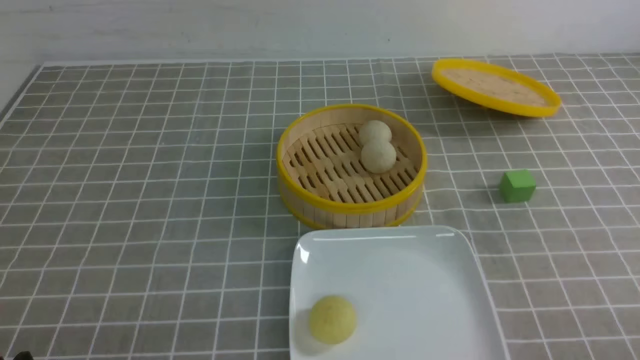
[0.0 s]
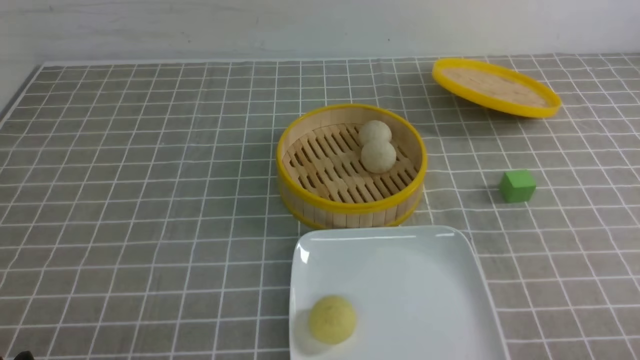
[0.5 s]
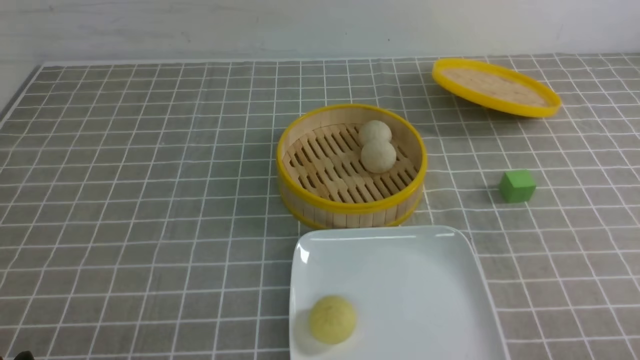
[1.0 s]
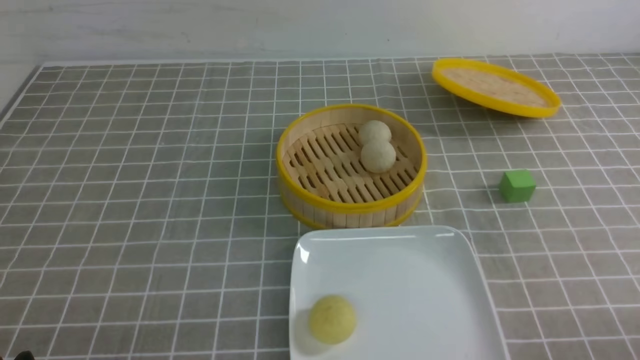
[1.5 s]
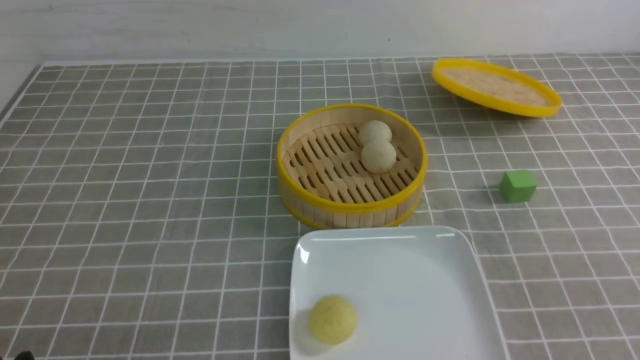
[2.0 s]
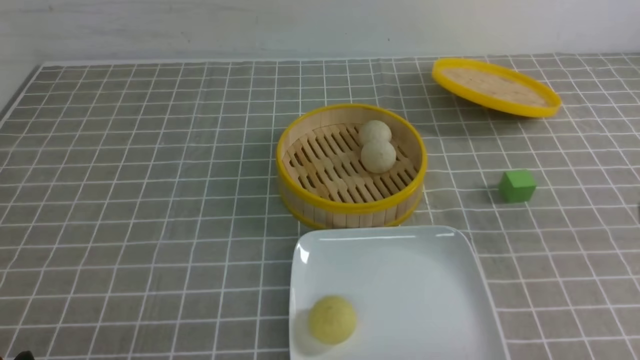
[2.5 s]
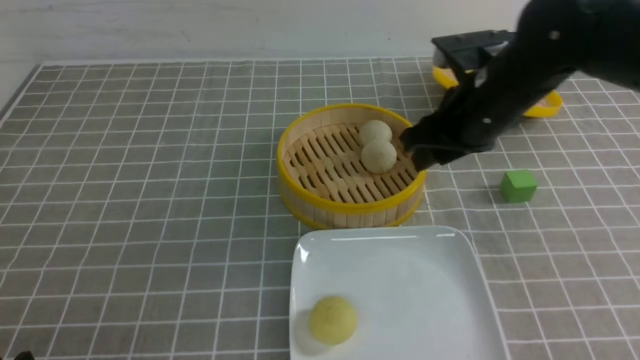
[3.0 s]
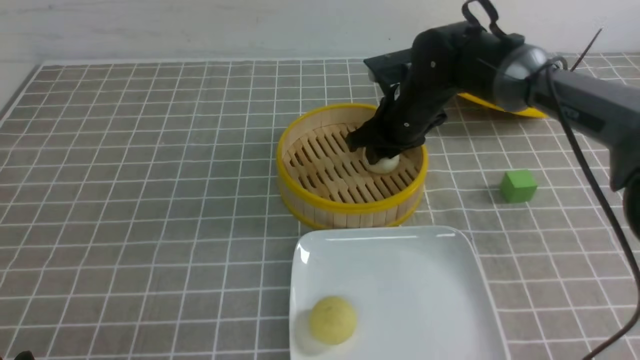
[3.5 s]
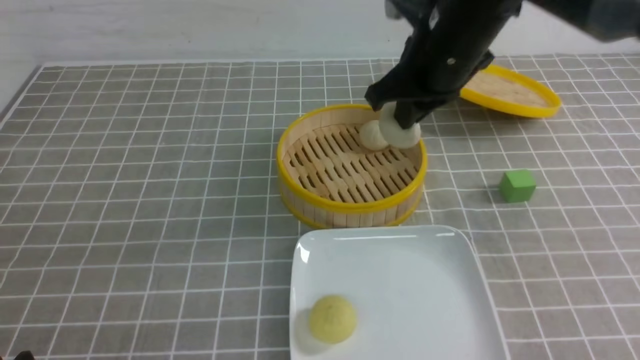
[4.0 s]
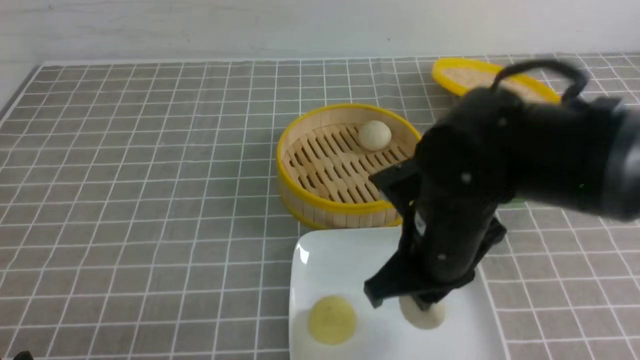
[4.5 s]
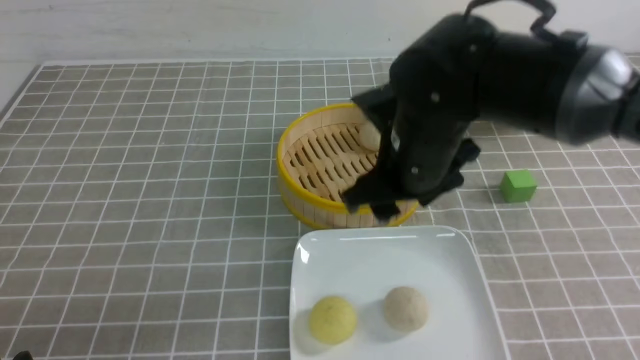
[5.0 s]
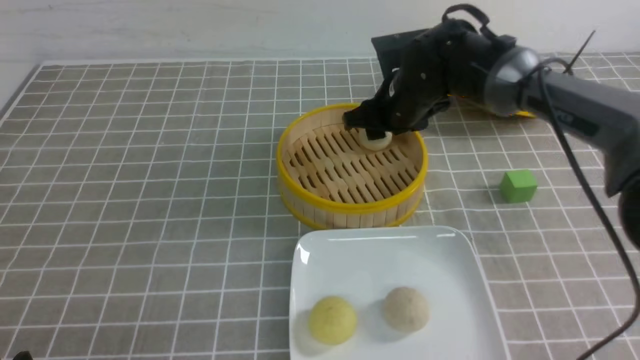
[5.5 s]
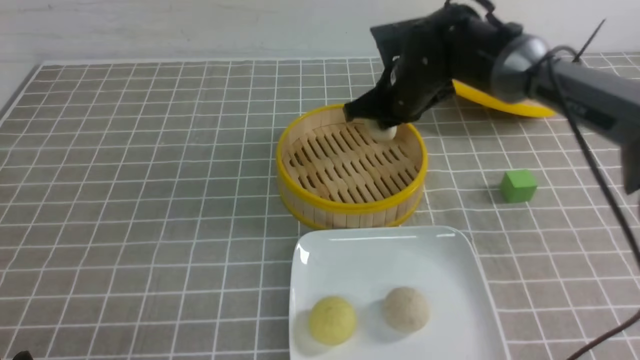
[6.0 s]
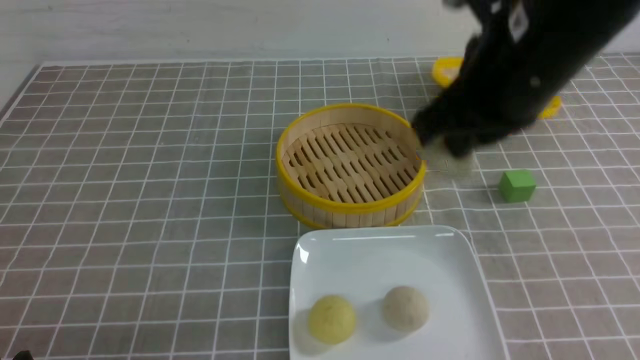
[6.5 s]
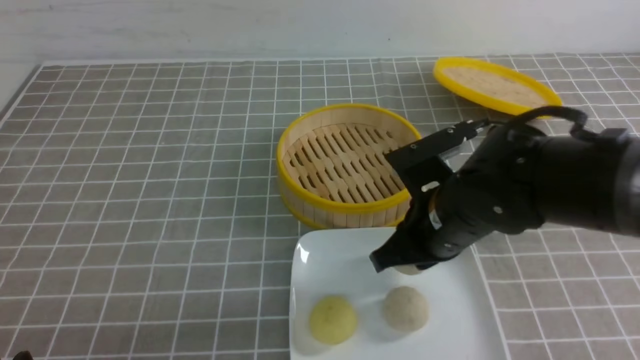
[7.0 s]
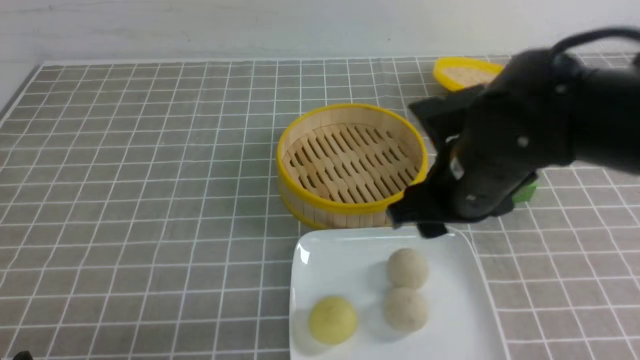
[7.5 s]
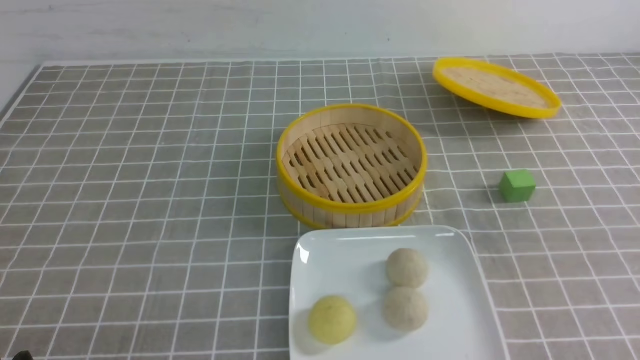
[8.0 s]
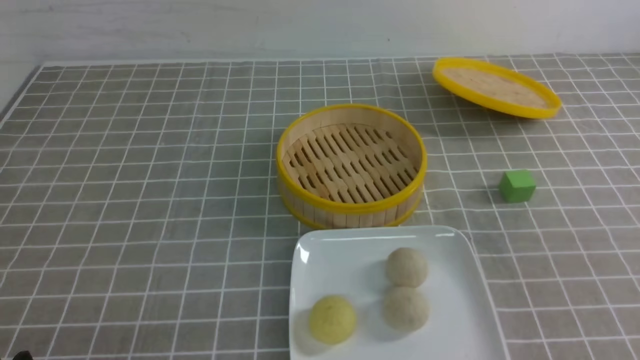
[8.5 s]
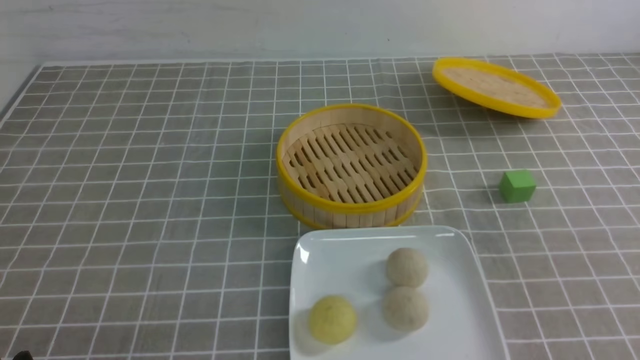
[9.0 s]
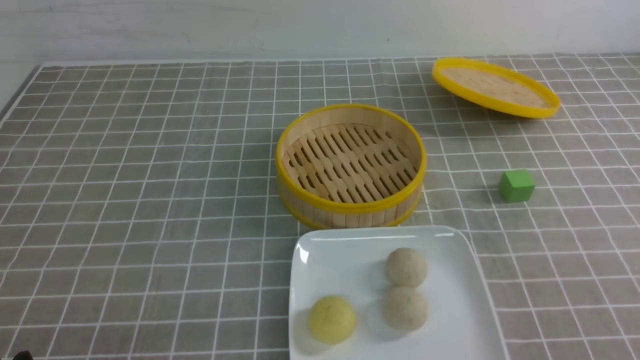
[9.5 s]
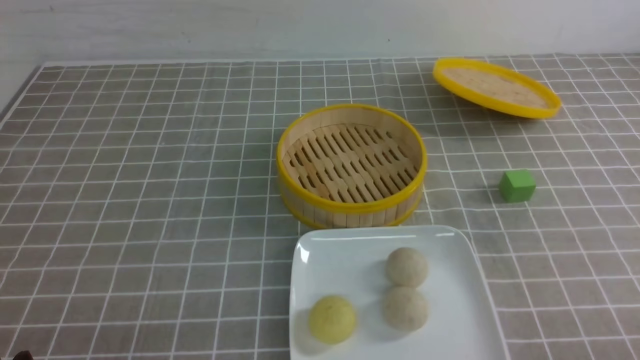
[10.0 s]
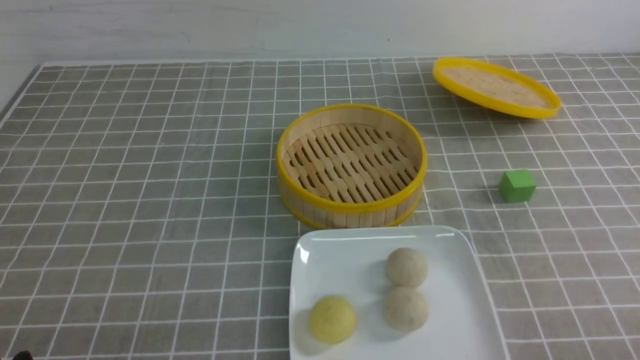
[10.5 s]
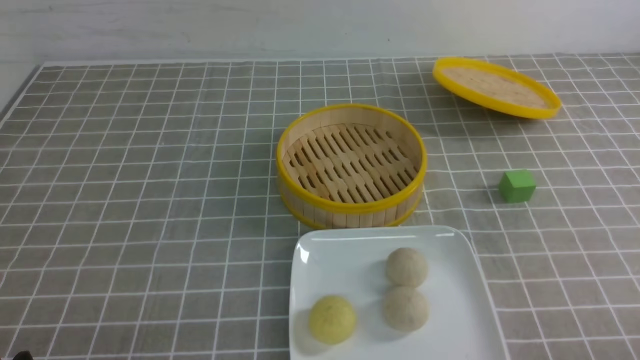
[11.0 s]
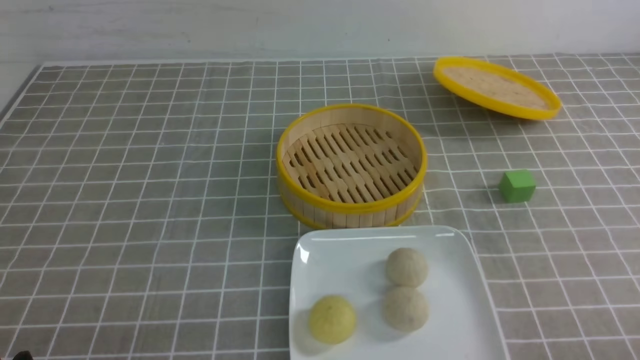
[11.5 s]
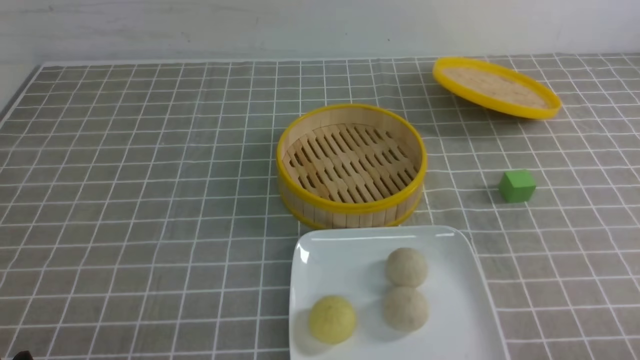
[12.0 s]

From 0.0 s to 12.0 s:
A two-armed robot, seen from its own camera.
Step, from 0.0 s to 3.5 s: use the right arm to grab the steamed stuffed bun that is closest to it.
Step, from 4.0 s to 4.5 s: use the right arm to put the steamed stuffed bun into the plate.
Step, from 5.0 s to 5.5 s: use the right arm to grab the steamed stuffed bun that is closest to it.
Step, from 6.0 s to 7.0 s: use the right arm to put the steamed stuffed bun into the plate.
From 2.0 s to 4.0 s: The right gripper shifts some 35 cm forward and to the left, and opens, then closes once more.
From 4.0 s to 6.0 s: The right gripper reaches some 10 cm backward, then returns, and opens, then closes again.
From 6.0 s to 8.0 s: The right gripper shifts about 35 cm backward and to the right, and opens, then closes once more.
From 8.0 s to 10.0 s: The right gripper goes some 20 cm downward.
From 10.0 s to 12.0 s: Neither gripper changes place.
